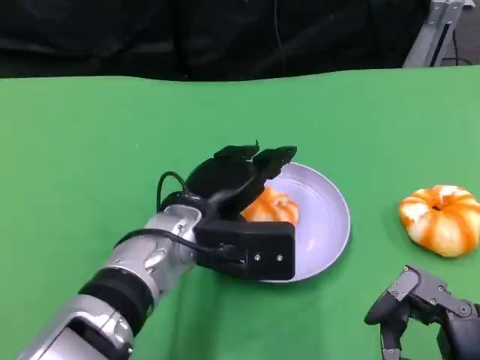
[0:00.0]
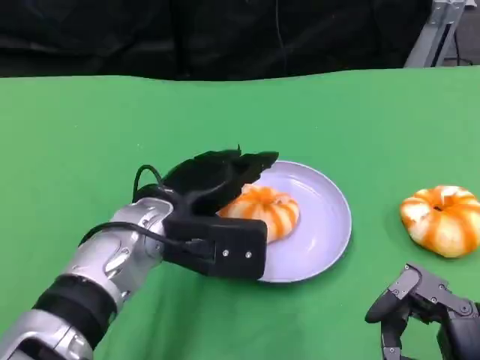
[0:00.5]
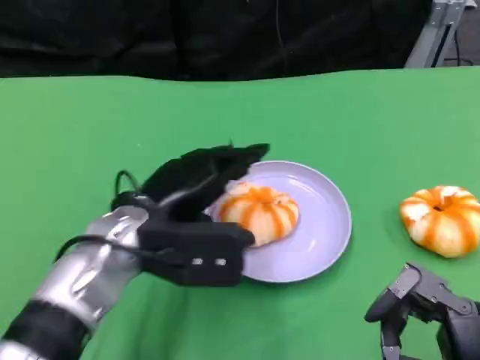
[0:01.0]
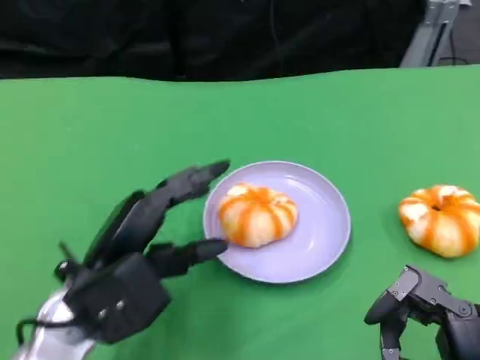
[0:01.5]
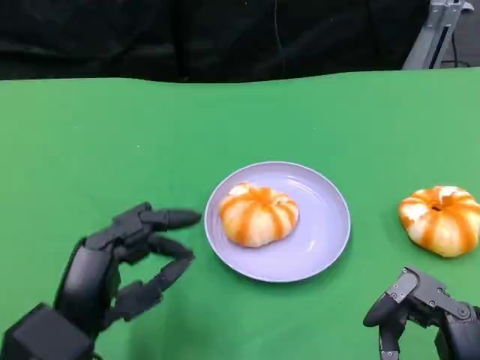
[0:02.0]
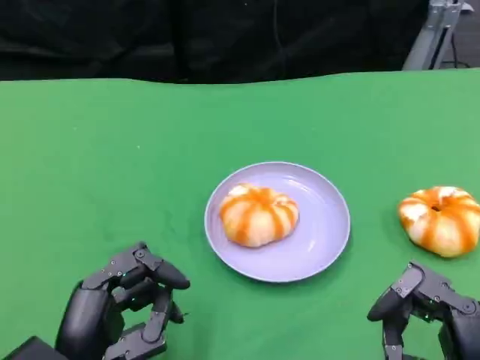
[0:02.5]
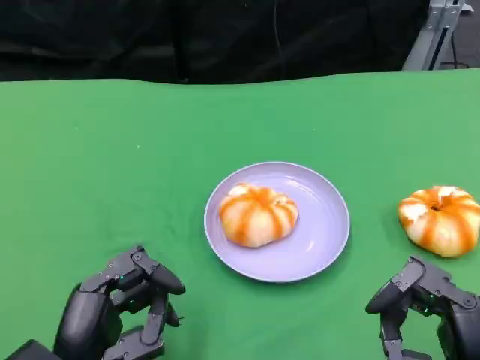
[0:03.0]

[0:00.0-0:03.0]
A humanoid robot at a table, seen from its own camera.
Task of the whole recording: Grasp the bread from the table and place it into the plate.
0:00.0 to 0:01.5: The left hand travels to the left and backward by some 10 cm.
0:01.5 to 0:03.0: The left hand moves backward, about 10 cm.

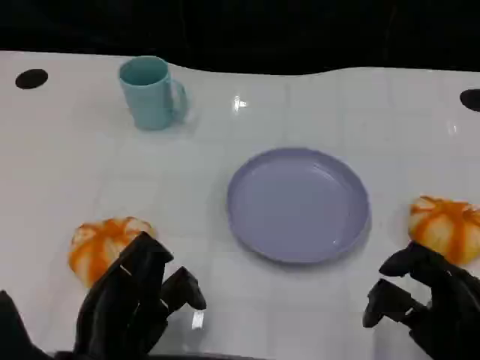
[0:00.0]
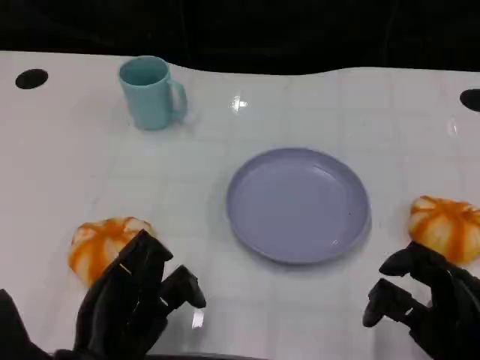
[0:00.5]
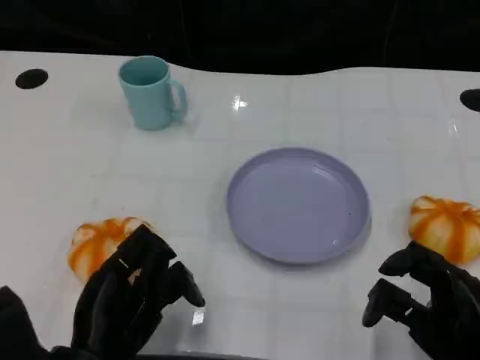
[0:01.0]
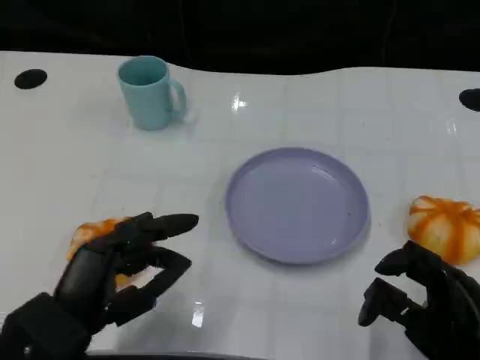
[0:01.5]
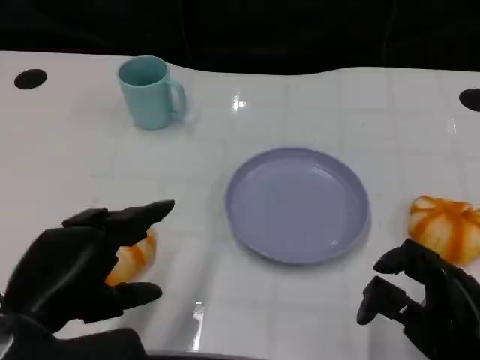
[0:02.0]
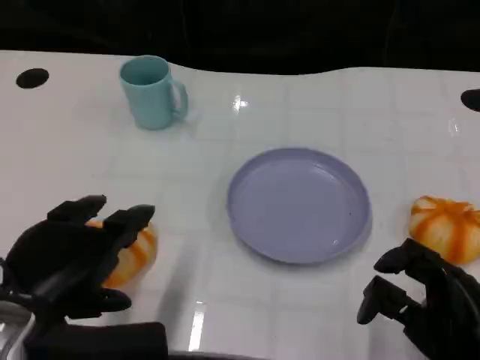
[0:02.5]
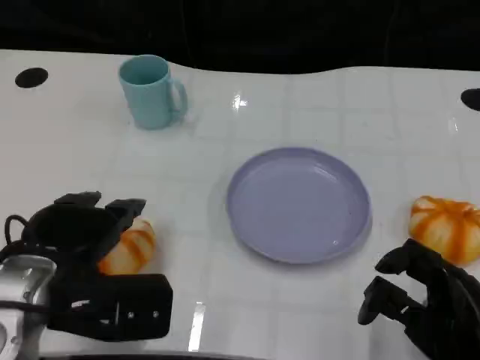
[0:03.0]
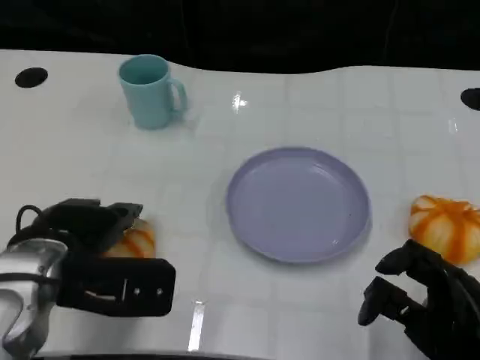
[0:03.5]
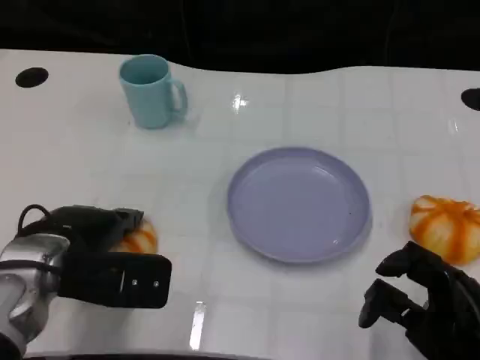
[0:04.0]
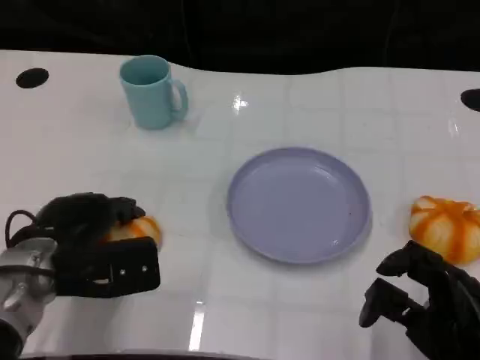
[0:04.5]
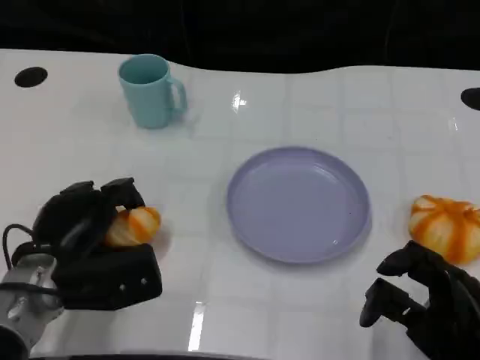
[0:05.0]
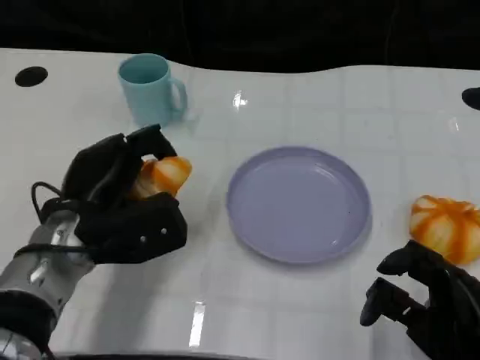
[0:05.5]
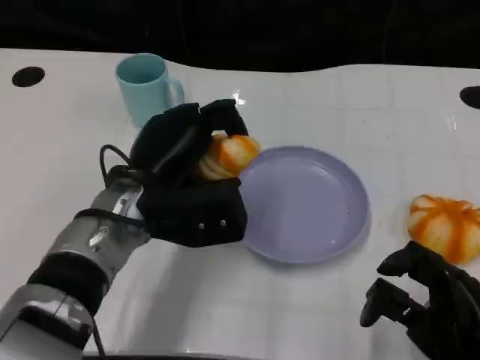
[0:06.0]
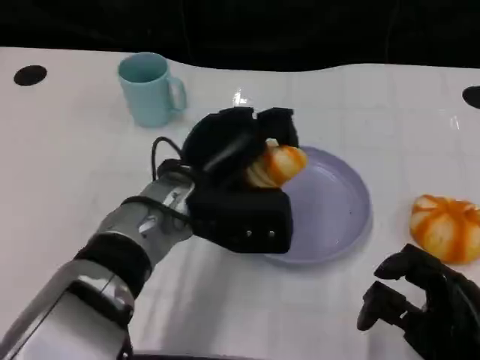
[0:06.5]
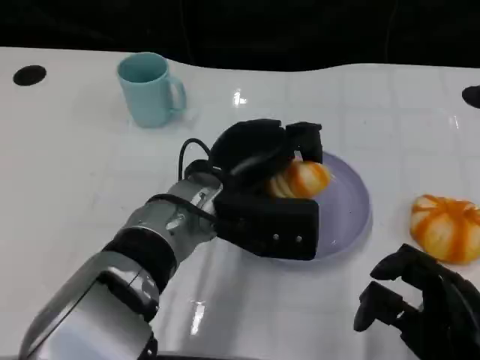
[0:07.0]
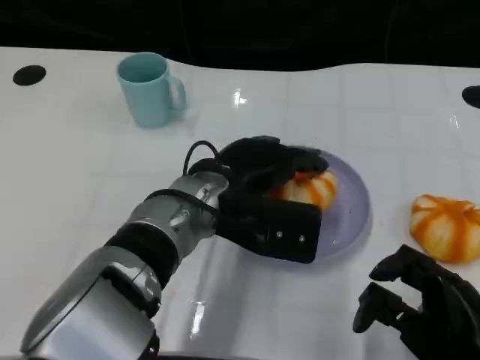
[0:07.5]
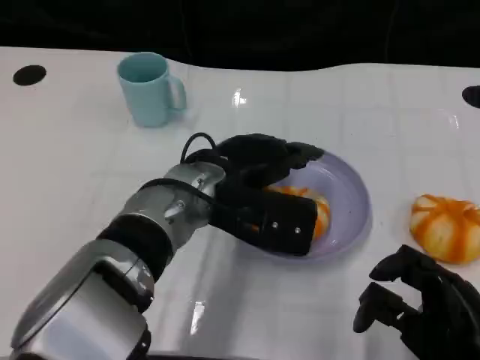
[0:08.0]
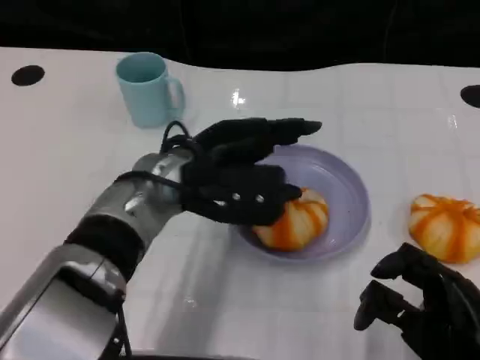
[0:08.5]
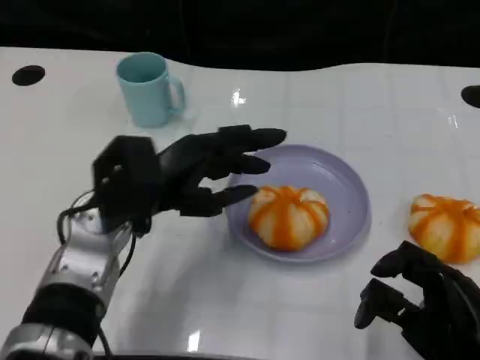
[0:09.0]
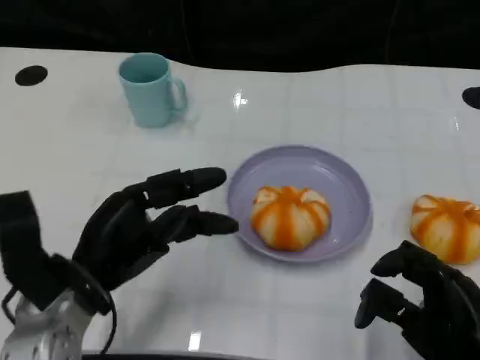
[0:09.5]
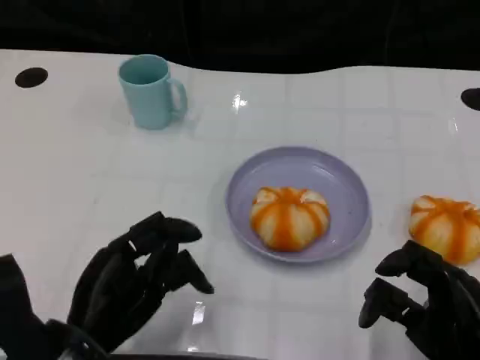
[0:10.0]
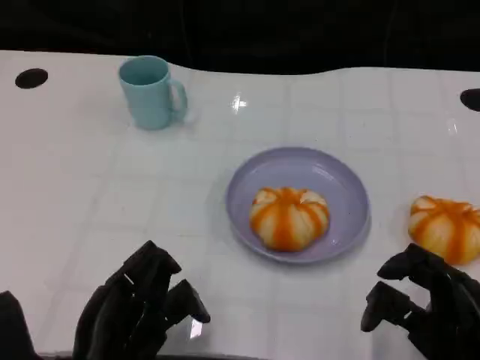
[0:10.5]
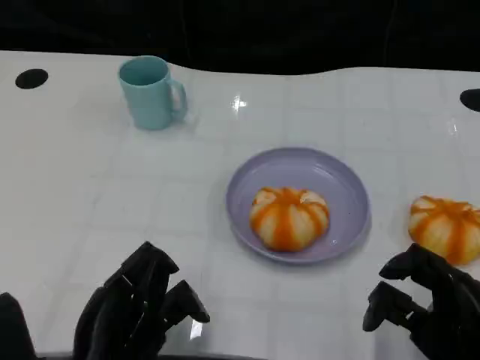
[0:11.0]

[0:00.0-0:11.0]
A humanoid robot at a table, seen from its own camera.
Task of the whole recording: Grasp the bread from the table and place it into the plate.
0:00.0 to 0:02.0: The left hand travels upward by some 10 cm.
0:02.0 to 0:03.5: The left hand is displaced forward by some 10 cm.
0:03.5 to 0:05.5: The left hand ends up approximately 5 cm from where it was.
0:05.5 to 0:07.5: The left hand travels to the right by roughly 10 cm.
0:07.5 to 0:09.0: The left hand is displaced to the left by some 10 cm.
0:09.0 to 0:11.0: The left hand travels backward and downward by about 15 cm.

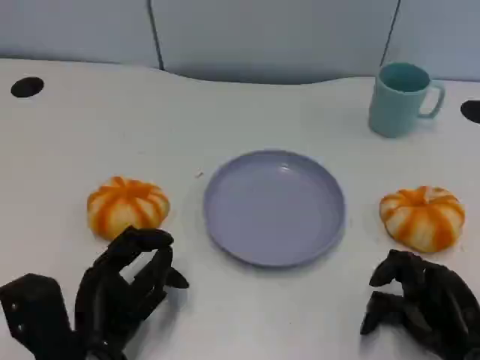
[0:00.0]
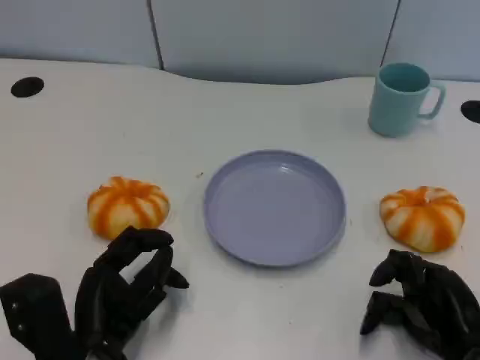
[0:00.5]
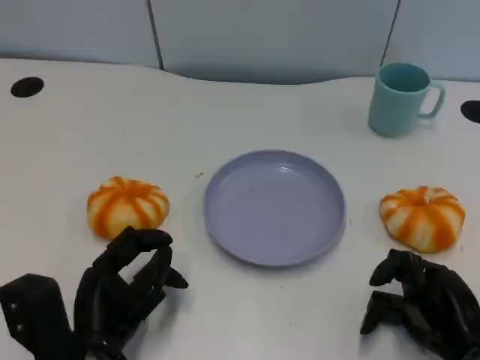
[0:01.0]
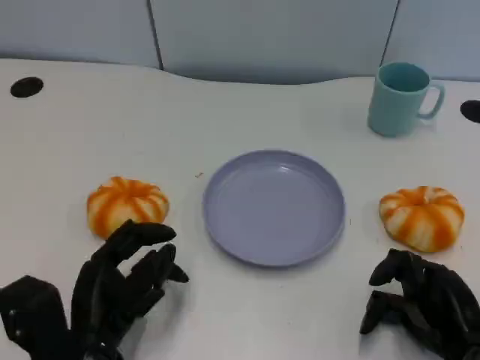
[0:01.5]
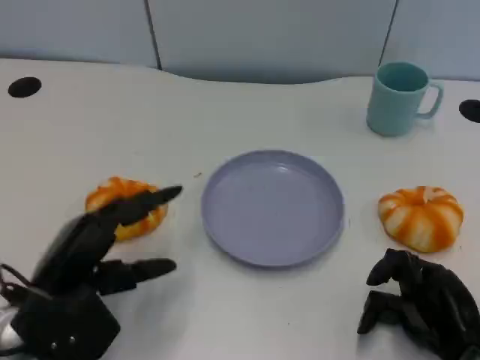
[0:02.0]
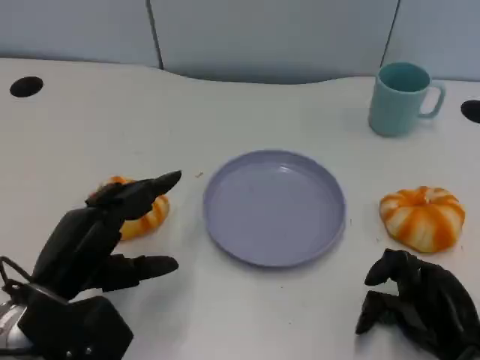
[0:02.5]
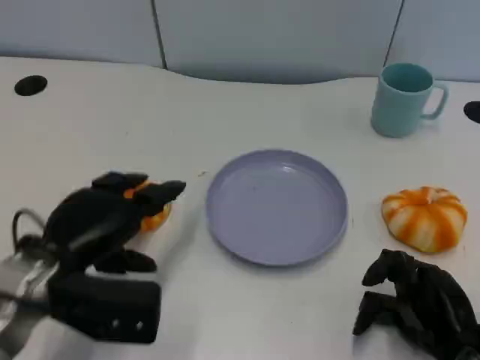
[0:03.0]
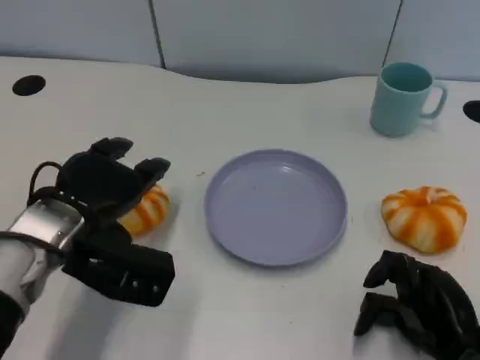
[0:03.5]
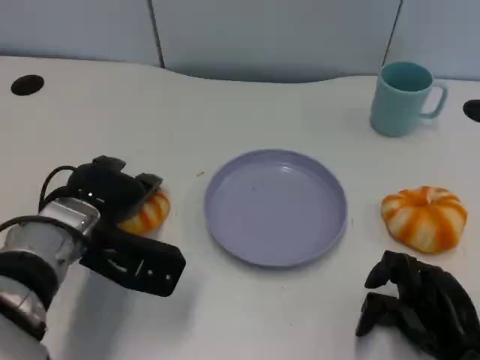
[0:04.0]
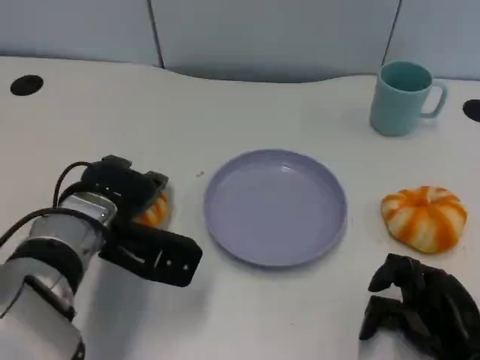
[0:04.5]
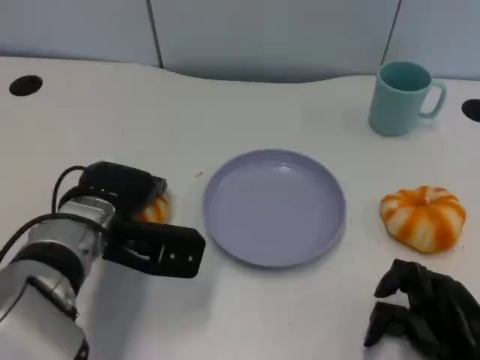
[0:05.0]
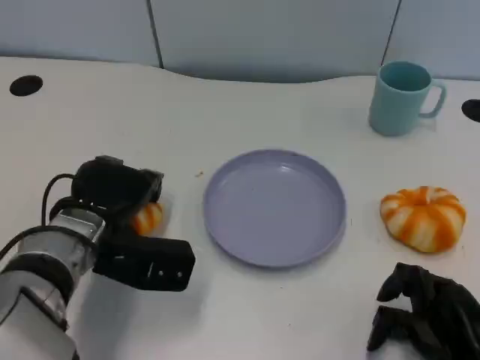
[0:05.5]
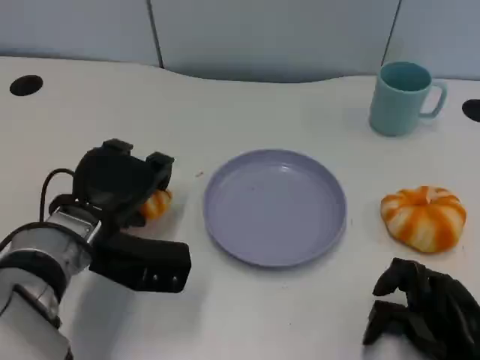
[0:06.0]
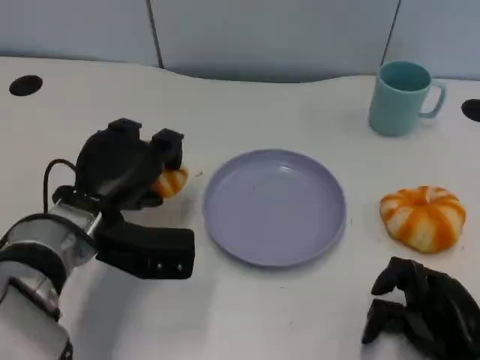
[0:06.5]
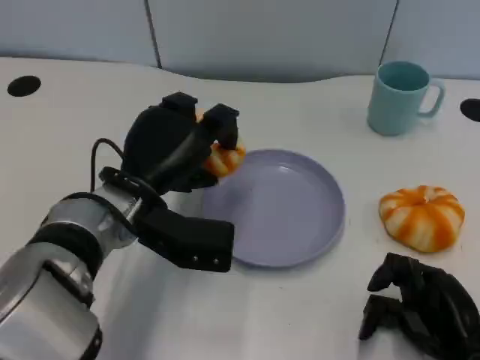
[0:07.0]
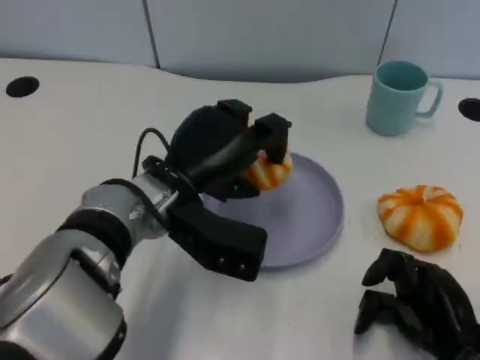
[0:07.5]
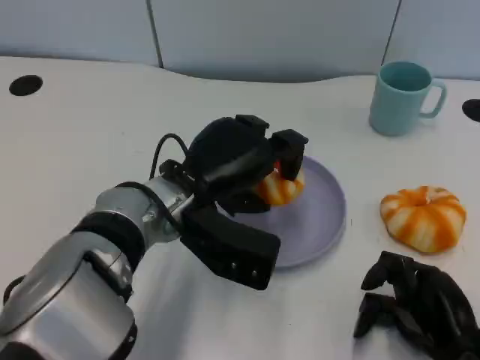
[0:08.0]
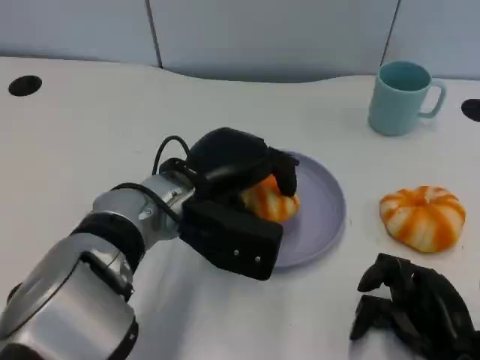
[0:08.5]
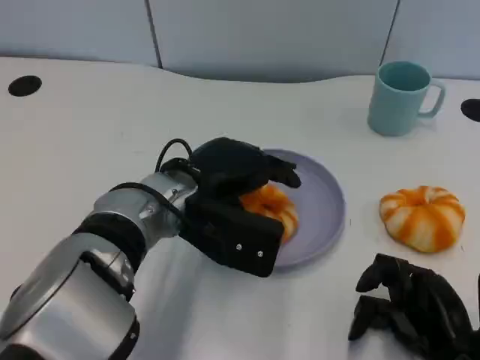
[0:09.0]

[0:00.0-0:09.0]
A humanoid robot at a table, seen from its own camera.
Task of the whole recording: Grasp the bread from the table and place it into the plate.
0:00.0 to 0:02.0: The left hand moves upward, roughly 5 cm.
0:02.0 to 0:04.5: The left hand is displaced forward and to the right by about 10 cm.

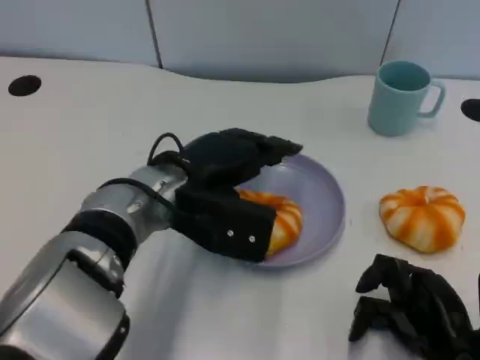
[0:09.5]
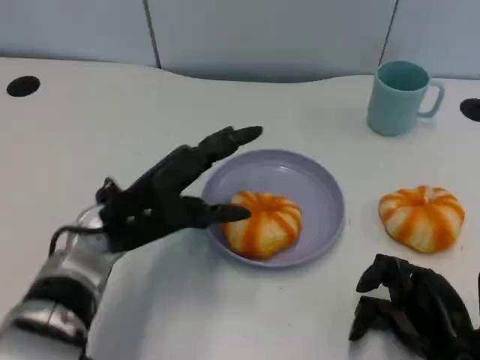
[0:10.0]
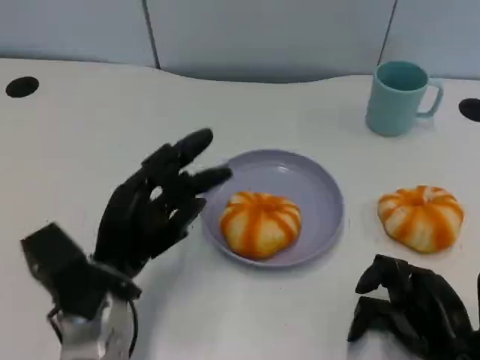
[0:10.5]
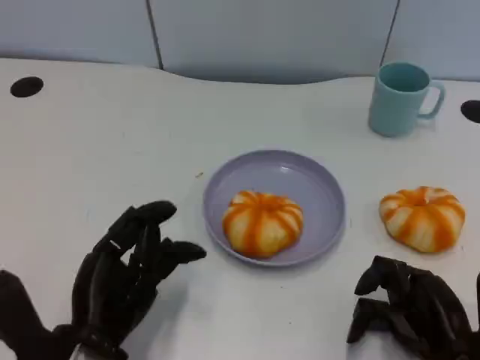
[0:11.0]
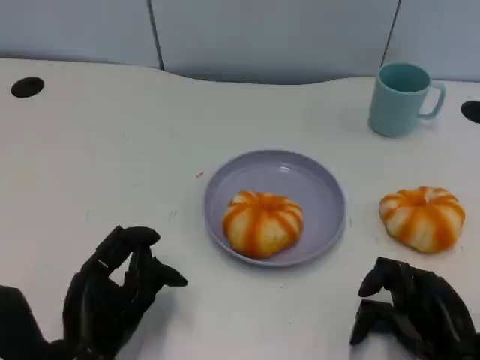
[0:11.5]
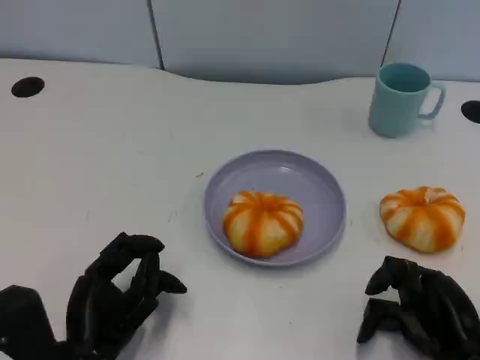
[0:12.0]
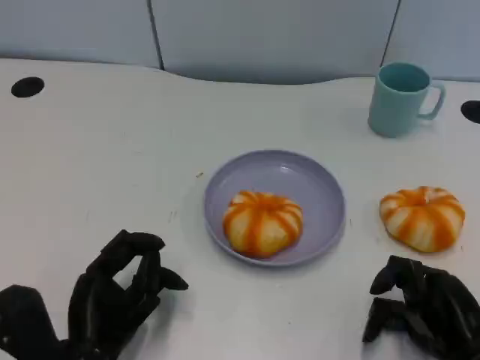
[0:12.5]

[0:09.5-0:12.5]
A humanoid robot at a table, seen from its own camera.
Task of the whole recording: Grasp the bread from the table and place it into the plate.
0:09.5 to 0:11.0: The left hand moves backward, to the left and downward, about 20 cm.
0:11.0 to 0:12.5: The hands move only a little.
